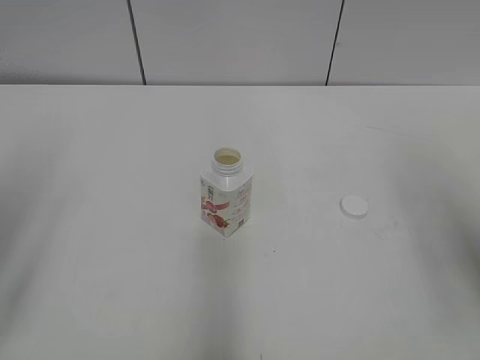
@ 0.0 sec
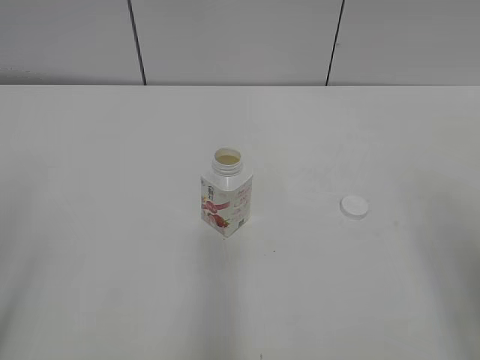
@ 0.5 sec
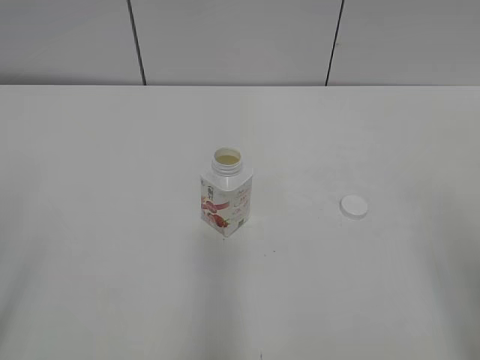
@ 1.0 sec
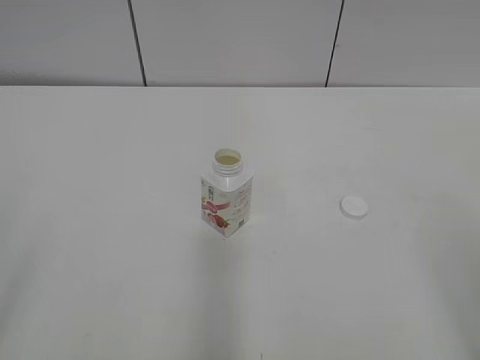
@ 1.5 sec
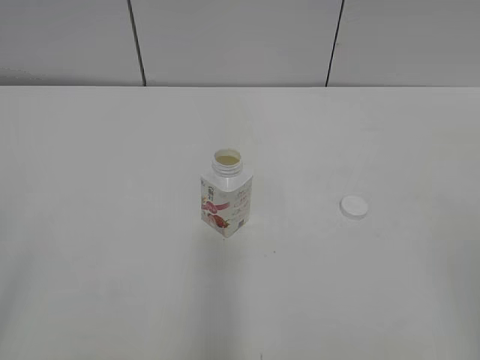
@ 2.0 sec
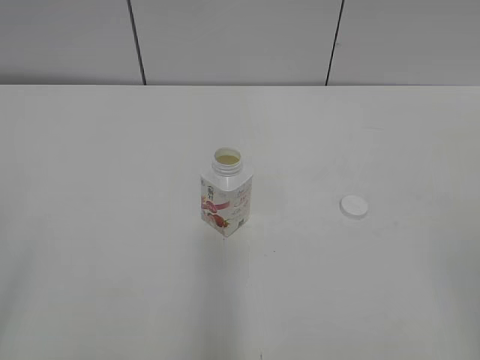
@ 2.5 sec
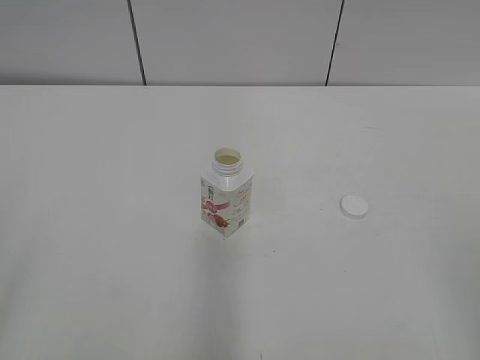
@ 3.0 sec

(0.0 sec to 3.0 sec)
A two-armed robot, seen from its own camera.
0.0 sec - 1.5 sec: The grippers both shift backward by about 15 cm.

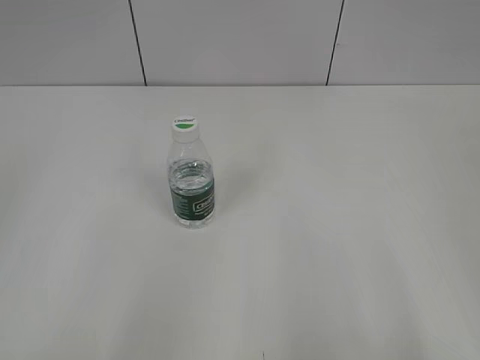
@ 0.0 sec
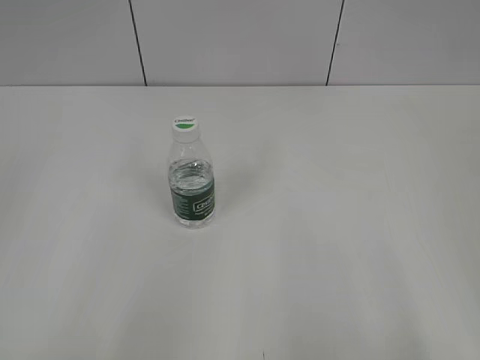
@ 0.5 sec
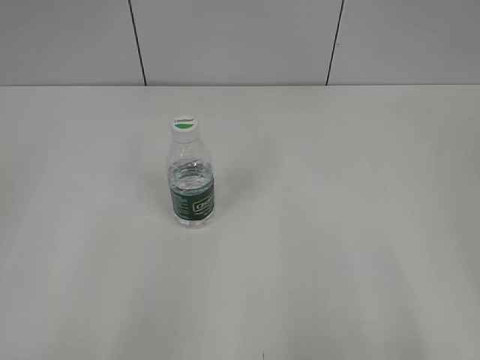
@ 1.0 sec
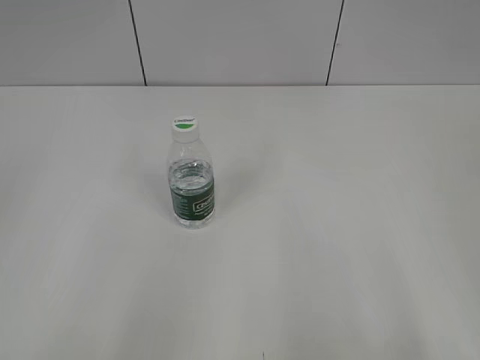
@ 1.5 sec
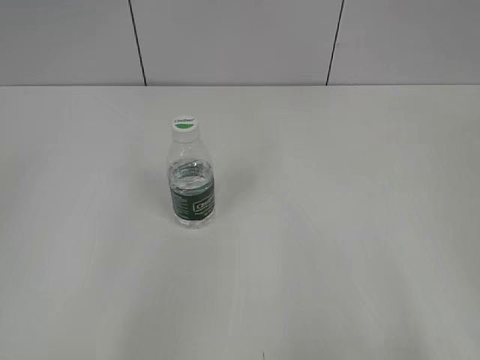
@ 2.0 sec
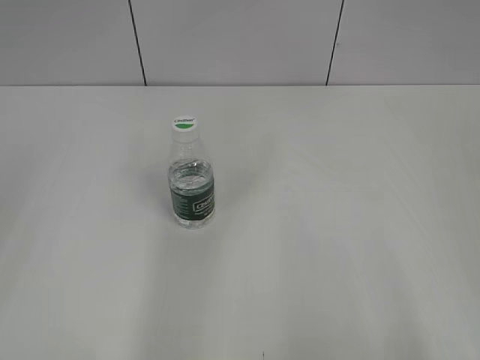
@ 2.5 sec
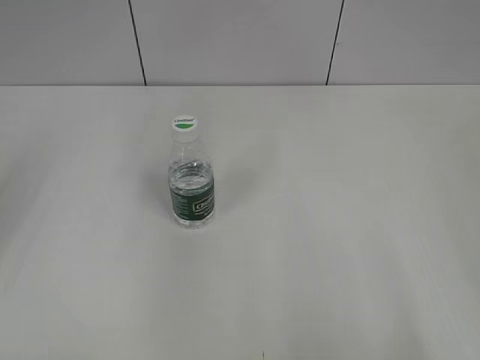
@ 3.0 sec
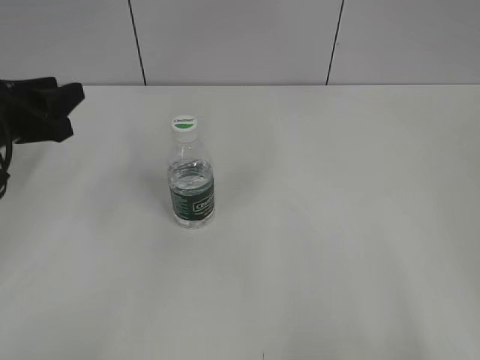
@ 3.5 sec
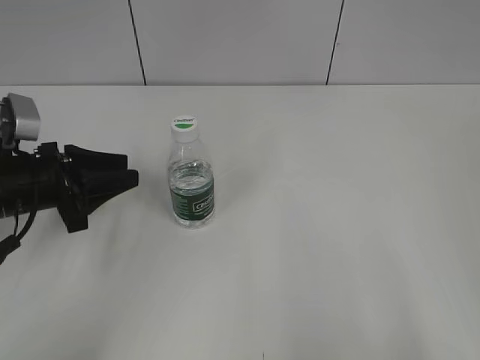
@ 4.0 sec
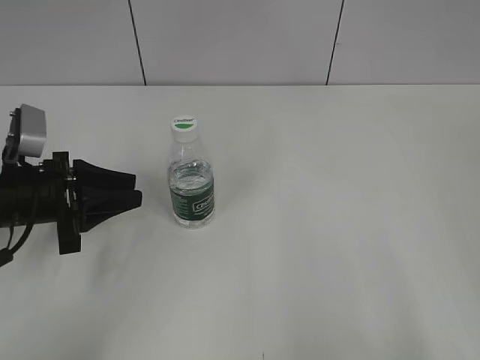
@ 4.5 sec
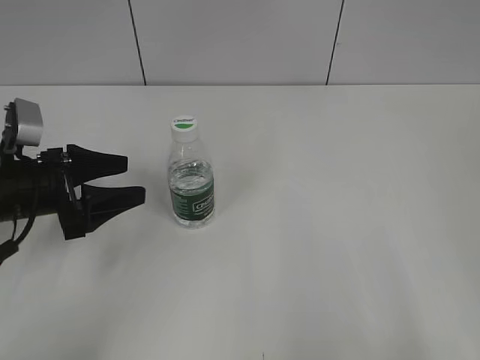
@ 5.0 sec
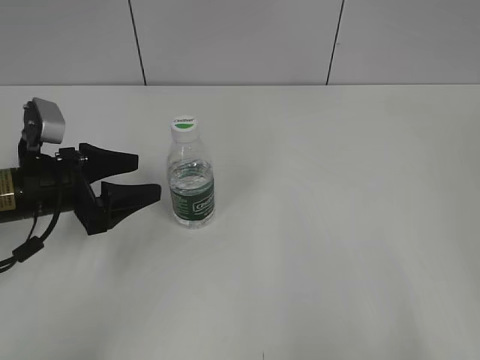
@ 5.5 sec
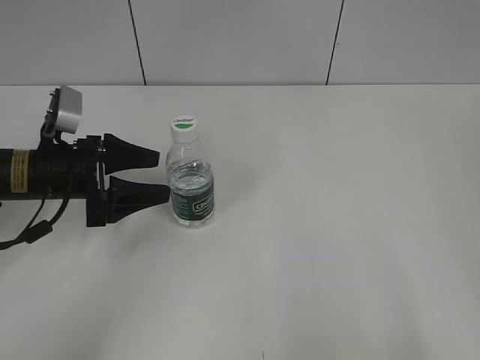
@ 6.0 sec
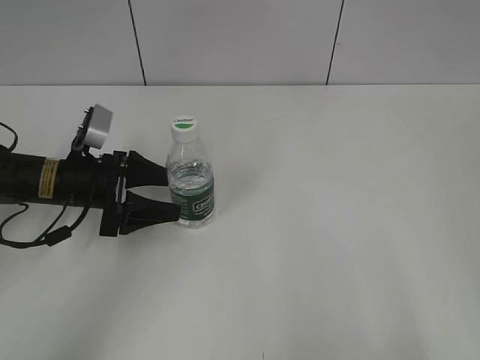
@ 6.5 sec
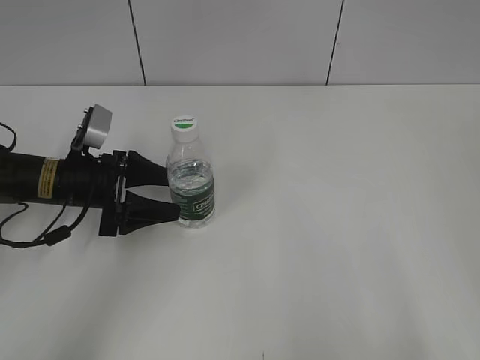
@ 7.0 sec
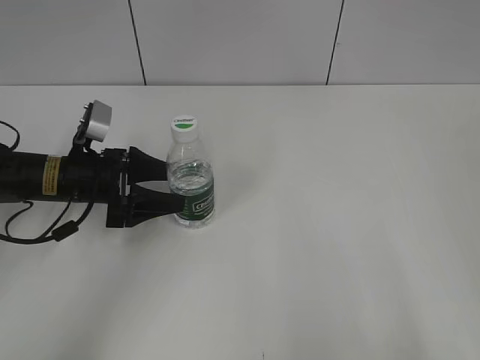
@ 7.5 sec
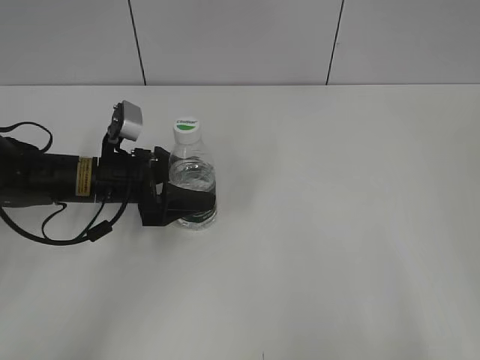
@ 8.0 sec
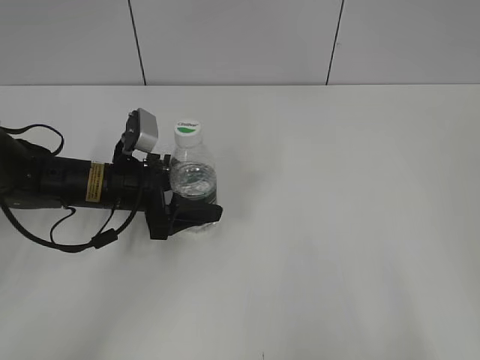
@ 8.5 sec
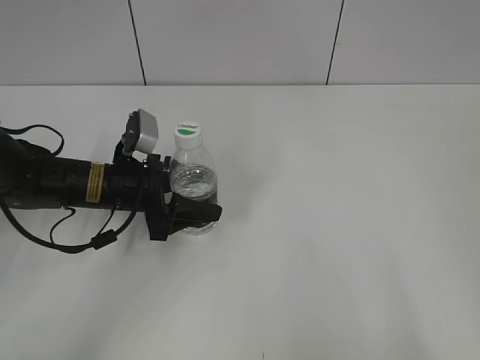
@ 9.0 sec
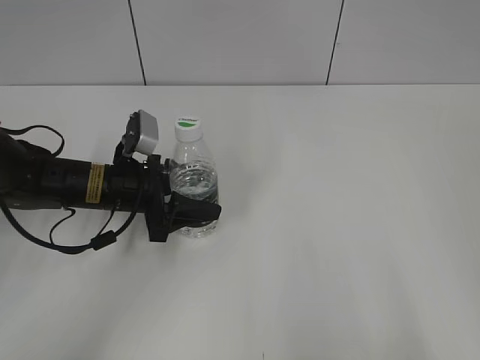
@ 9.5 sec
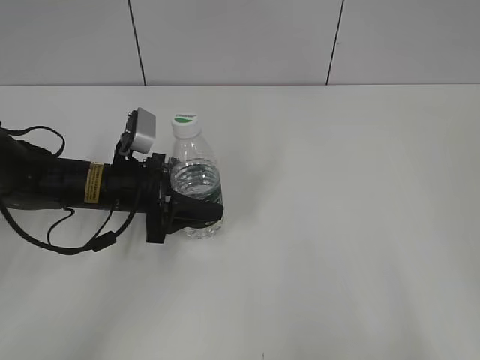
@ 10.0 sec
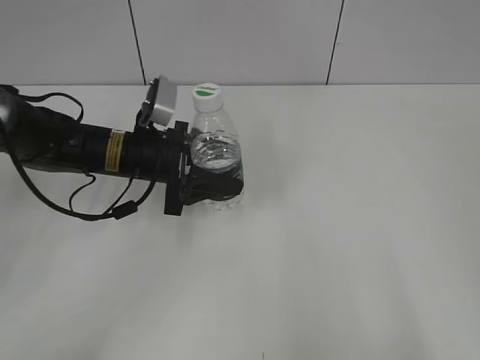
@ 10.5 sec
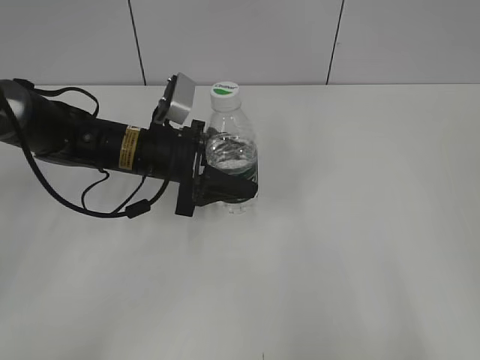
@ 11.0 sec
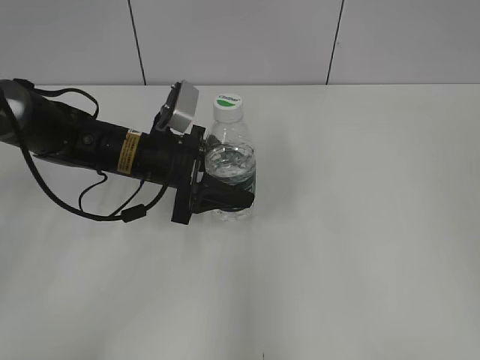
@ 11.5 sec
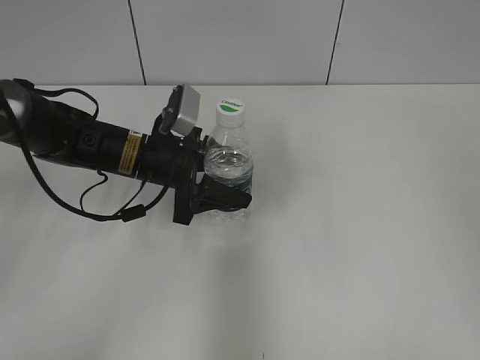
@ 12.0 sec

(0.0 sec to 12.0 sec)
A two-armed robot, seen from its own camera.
Step, 0.0 sec - 9.5 sec: Grasp the bottle and move it to the center of the table with the left gripper.
2.0 sec - 4.0 sec: The left gripper shifts approximately 35 cm forward and downward, and closes its fingers.
4.0 sec - 6.0 sec: The left gripper opens up.
6.0 sec - 8.0 sec: The left gripper is displaced to the right by about 5 cm.
8.0 sec - 10.0 sec: The left gripper closes up.
10.0 sec - 12.0 sec: The left gripper changes place by about 5 cm; the right gripper shifts about 15 cm forward and upward, and closes.

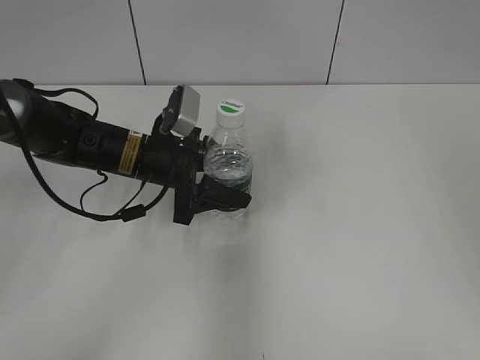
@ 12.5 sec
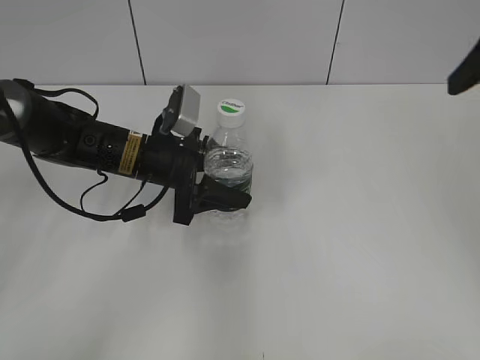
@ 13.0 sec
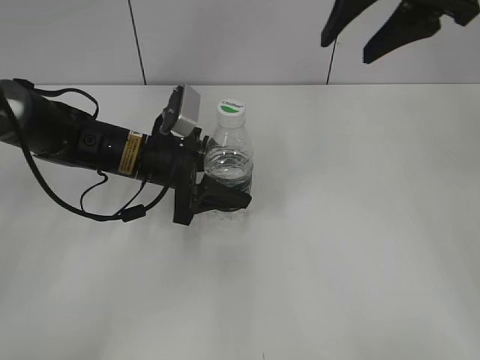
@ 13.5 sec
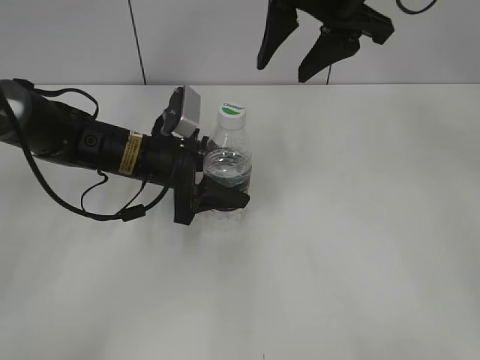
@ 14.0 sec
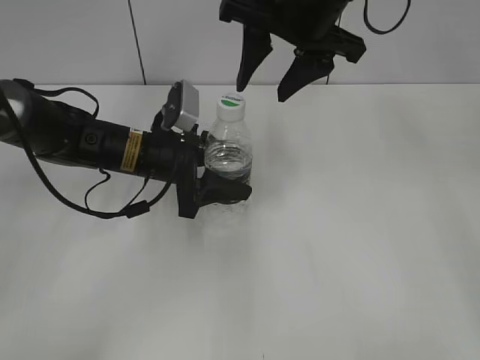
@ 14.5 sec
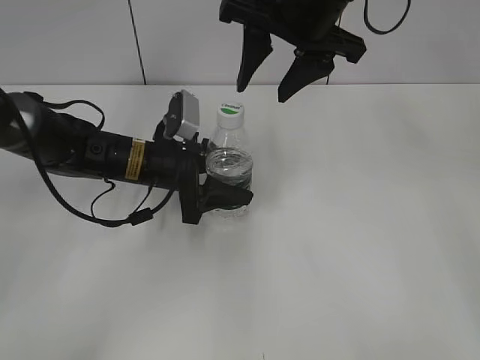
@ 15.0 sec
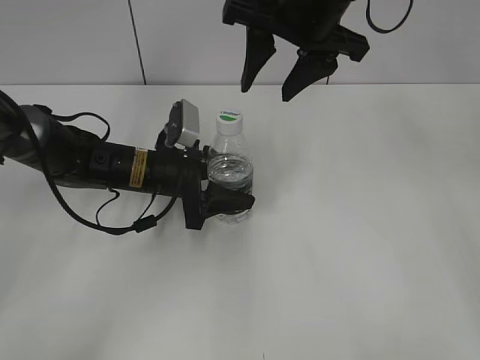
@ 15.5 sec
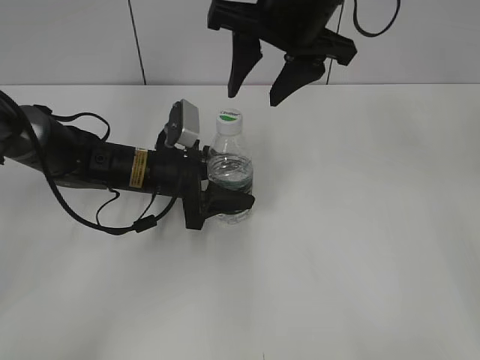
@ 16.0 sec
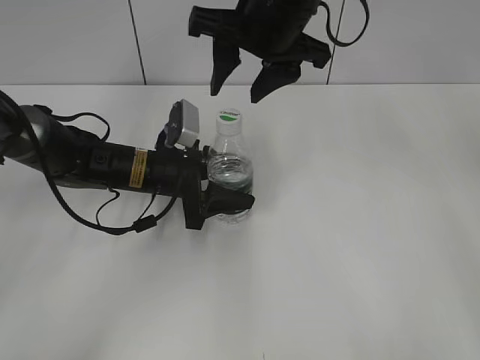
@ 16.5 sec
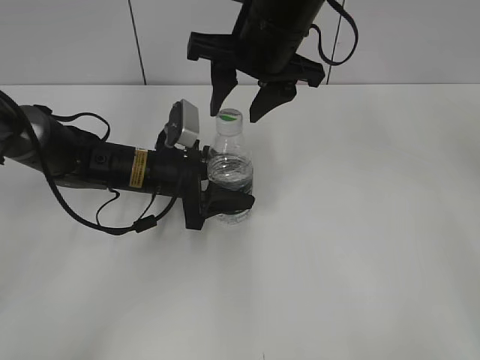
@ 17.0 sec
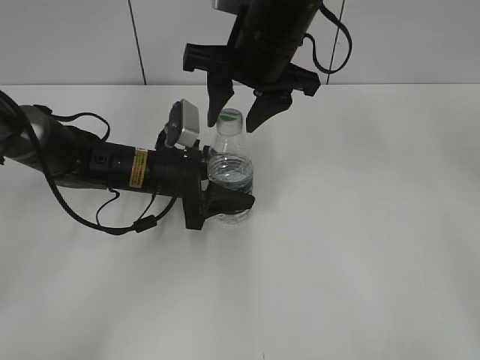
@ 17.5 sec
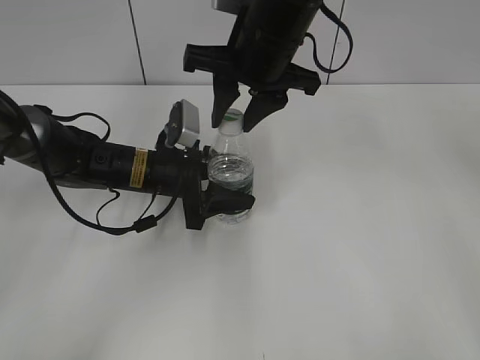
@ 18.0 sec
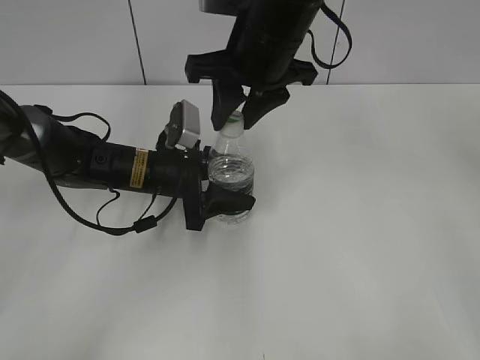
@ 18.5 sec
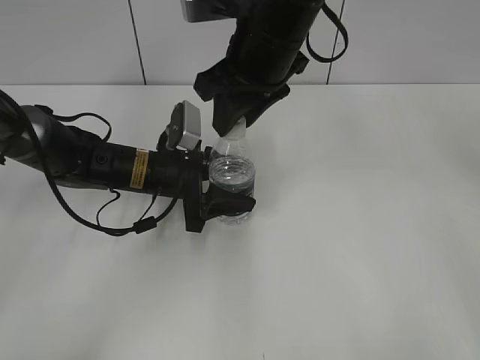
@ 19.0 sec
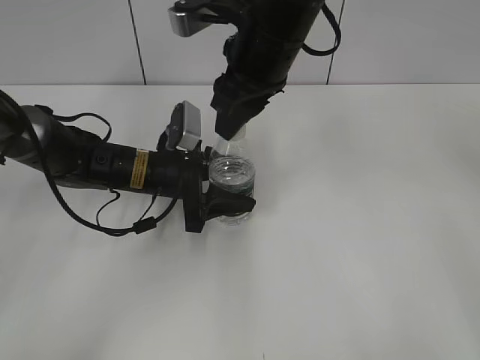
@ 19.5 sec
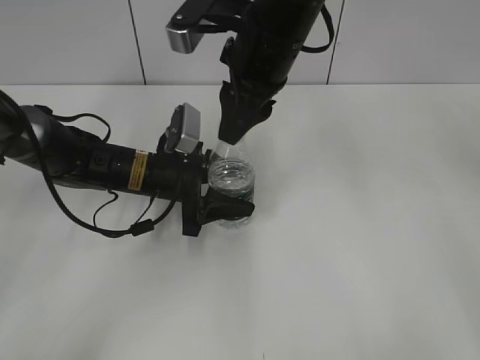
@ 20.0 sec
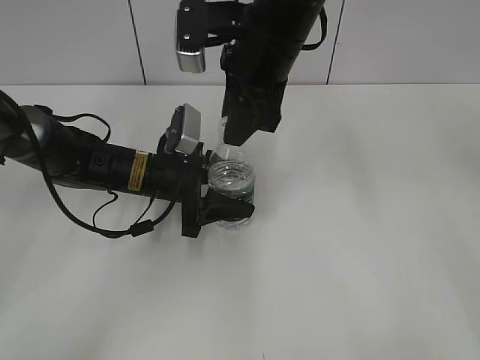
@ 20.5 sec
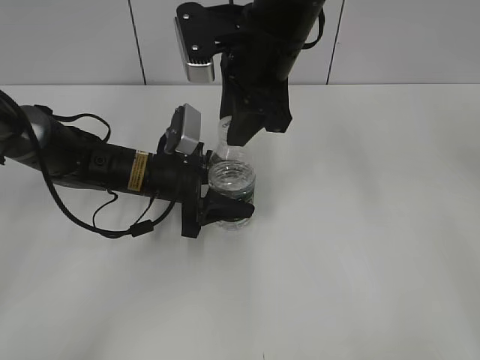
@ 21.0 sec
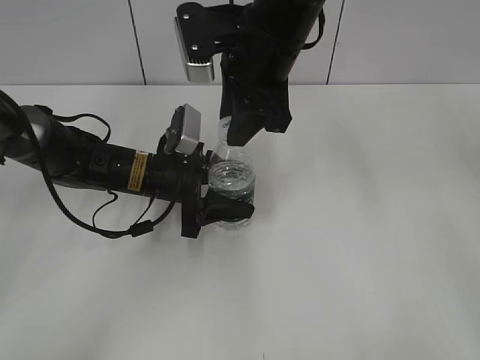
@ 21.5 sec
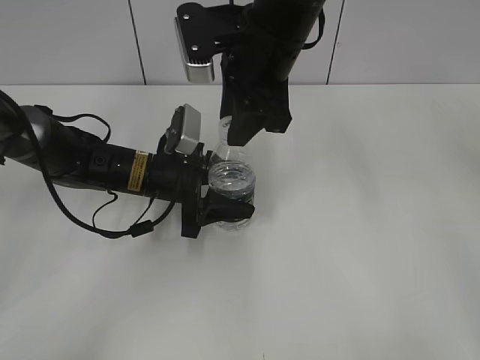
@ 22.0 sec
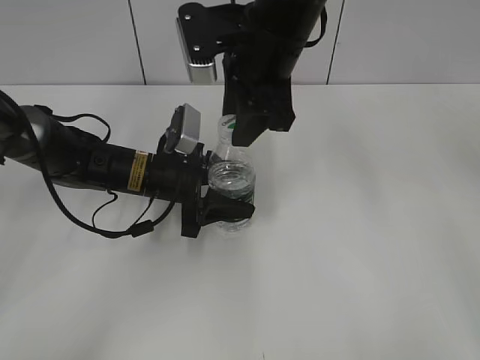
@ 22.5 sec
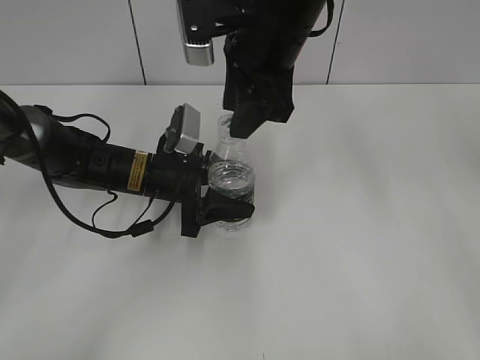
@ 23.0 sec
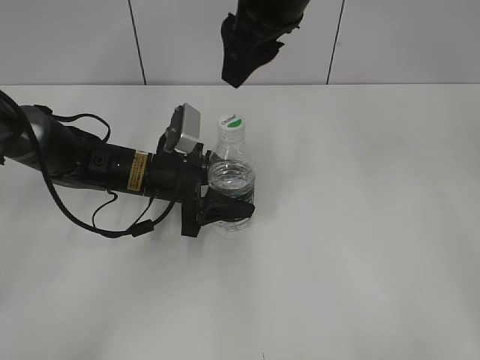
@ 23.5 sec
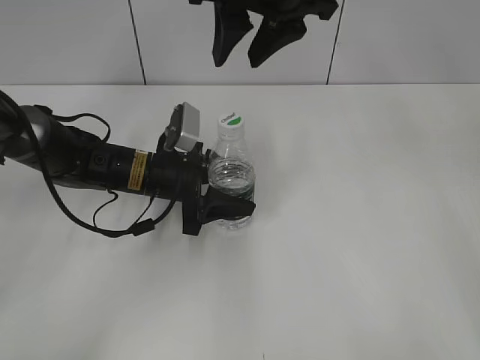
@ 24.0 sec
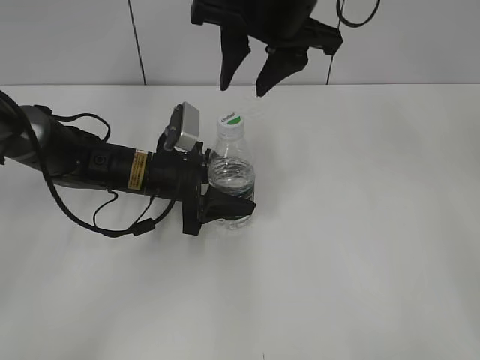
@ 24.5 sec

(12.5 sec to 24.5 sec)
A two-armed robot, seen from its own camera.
12.5 sec - 14.5 sec: The right gripper heads to the left and forward, covering approximately 30 cm.
14.5 sec - 16.5 sec: The grippers stay close to where they were, moving slightly.
16.5 sec - 18.5 sec: The right gripper closes up.
20.5 sec - 22.5 sec: The grippers stay close to where they were, moving slightly.
